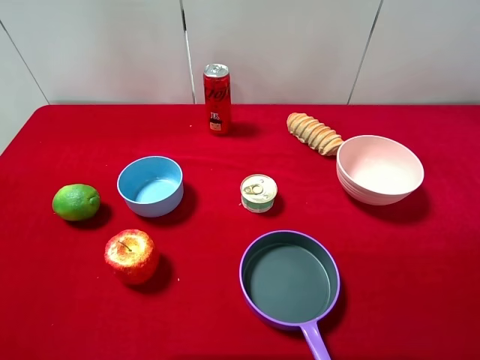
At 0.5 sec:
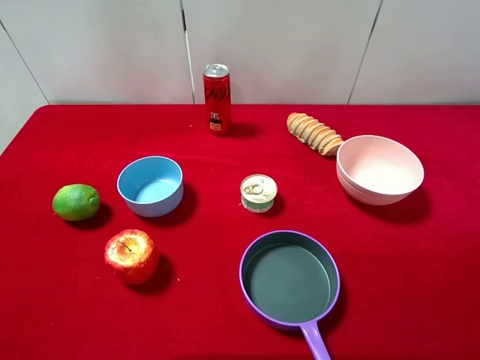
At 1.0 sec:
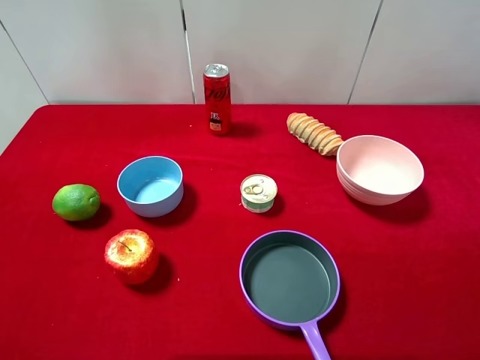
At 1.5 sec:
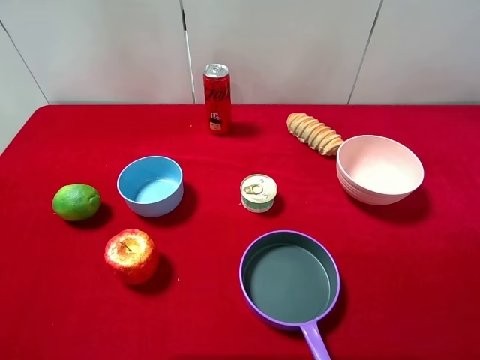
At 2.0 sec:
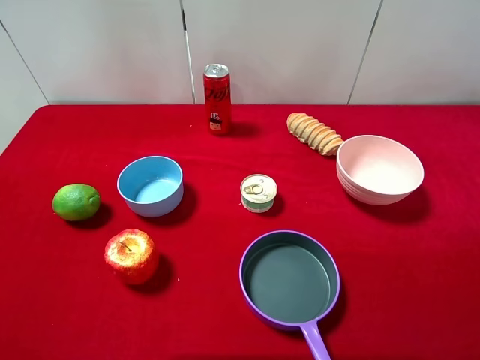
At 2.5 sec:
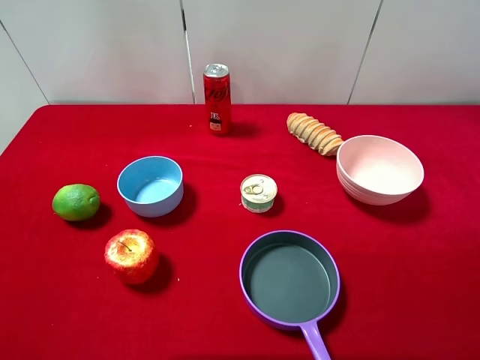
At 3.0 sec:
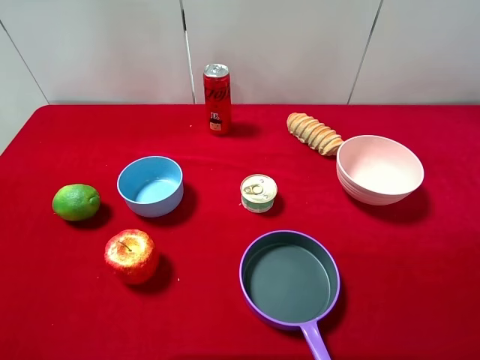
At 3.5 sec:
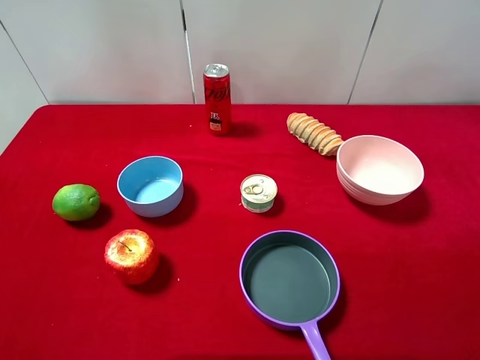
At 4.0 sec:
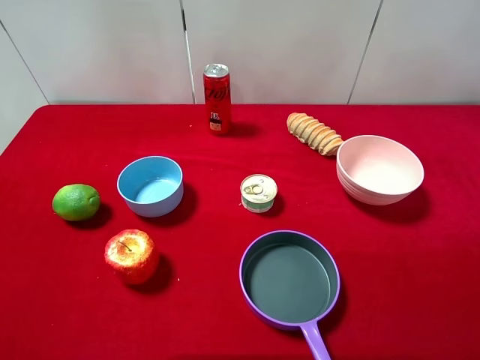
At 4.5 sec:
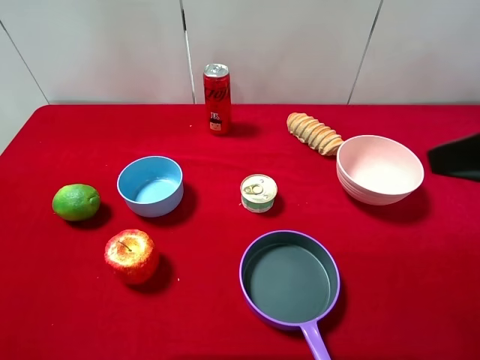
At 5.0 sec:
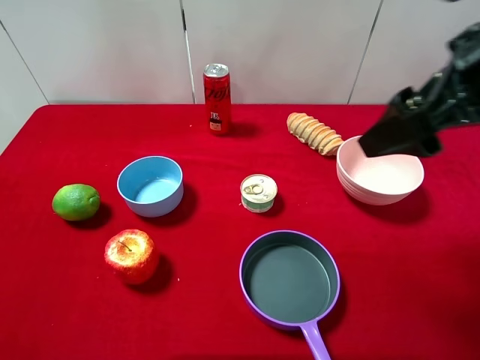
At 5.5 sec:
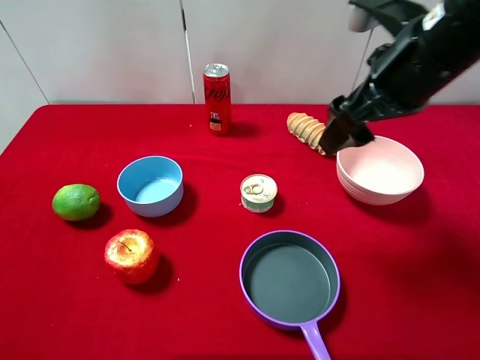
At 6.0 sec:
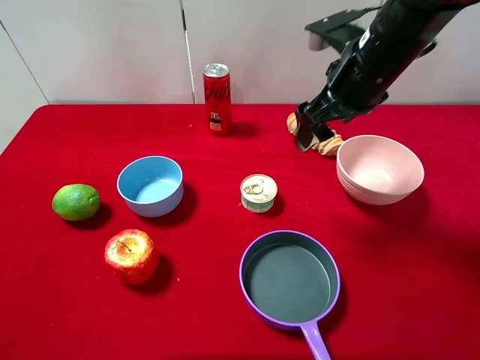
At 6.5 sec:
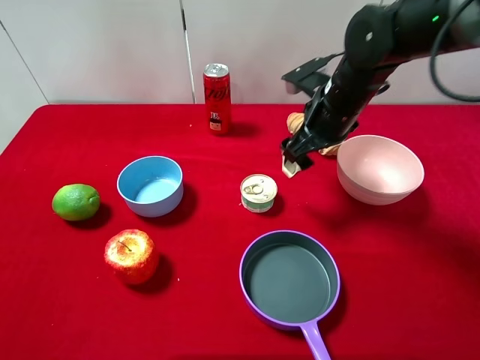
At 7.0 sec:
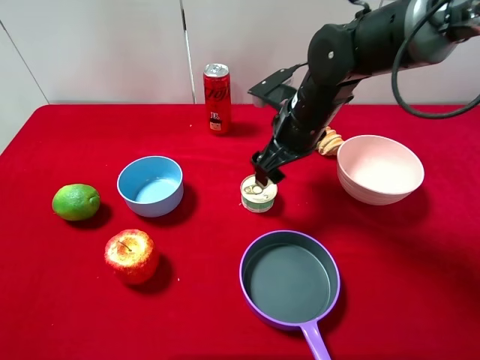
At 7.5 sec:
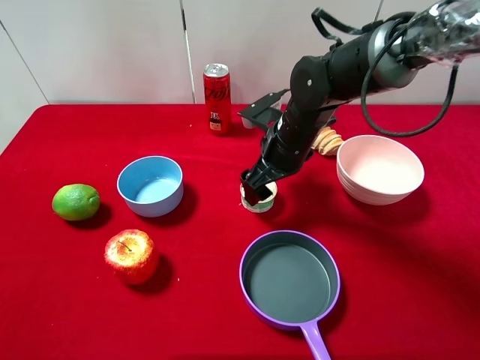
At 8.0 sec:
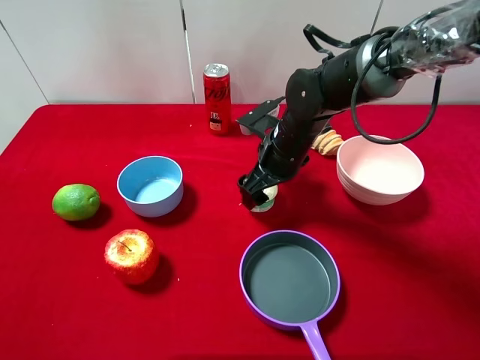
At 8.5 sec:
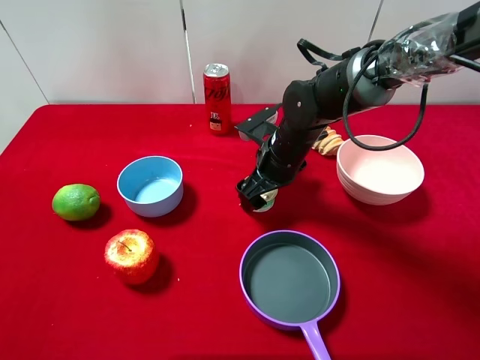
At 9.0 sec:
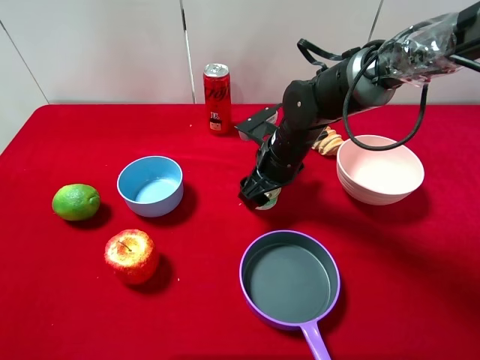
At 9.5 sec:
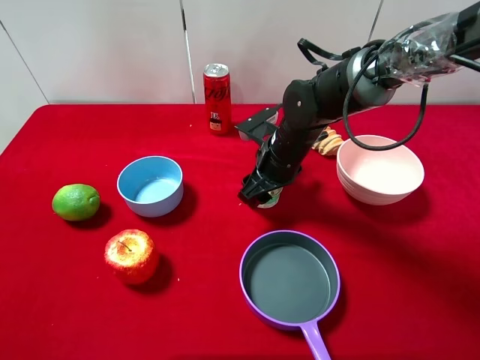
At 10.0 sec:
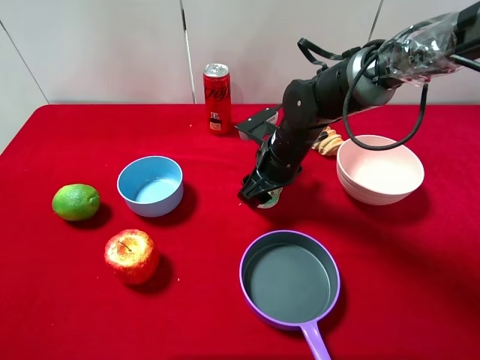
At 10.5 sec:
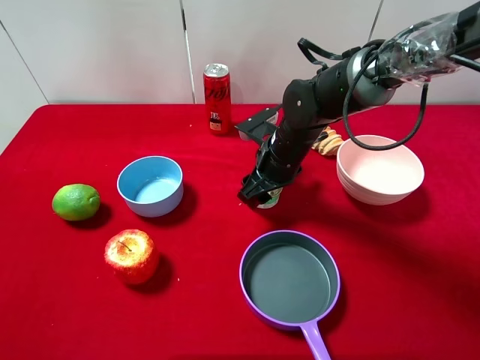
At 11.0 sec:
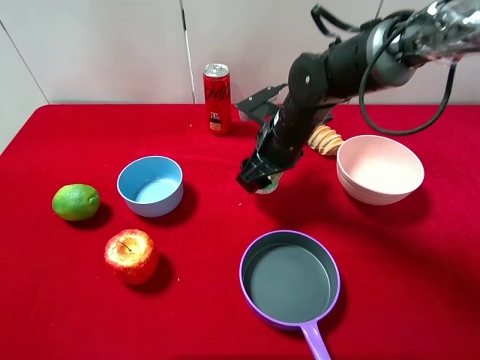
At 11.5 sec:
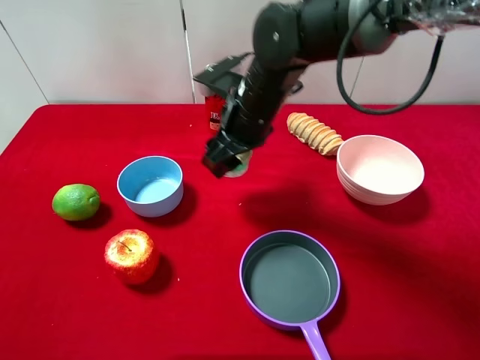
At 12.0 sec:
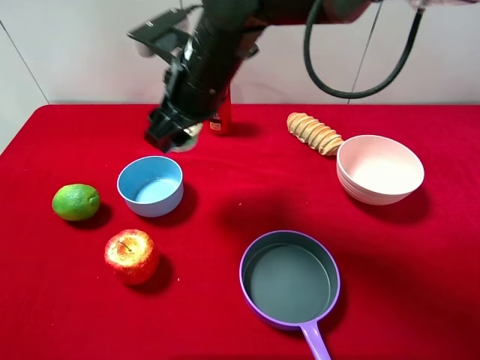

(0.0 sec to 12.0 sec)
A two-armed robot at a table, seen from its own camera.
Task of the whole recording: pick up an item with a gripper and place it in a random container on the desktop.
0.0 sec - 2.0 sec: Both grippers stay about where they are.
4.0 sec - 6.0 sec: The right gripper is displaced forward and to the left by roughly 25 cm.
6.0 sec - 8.0 sec: The right gripper travels downward and to the left by roughly 15 cm.
8.0 sec - 10.0 sec: The right gripper closes.
10.0 sec - 12.0 sec: The right gripper goes approximately 20 cm upward and to the left.

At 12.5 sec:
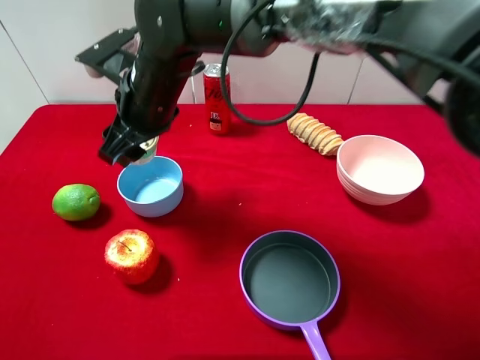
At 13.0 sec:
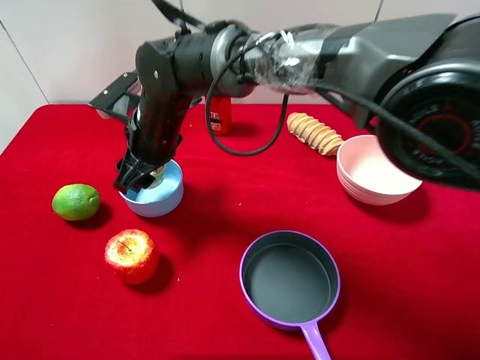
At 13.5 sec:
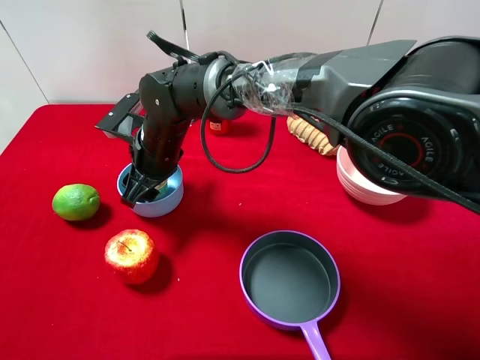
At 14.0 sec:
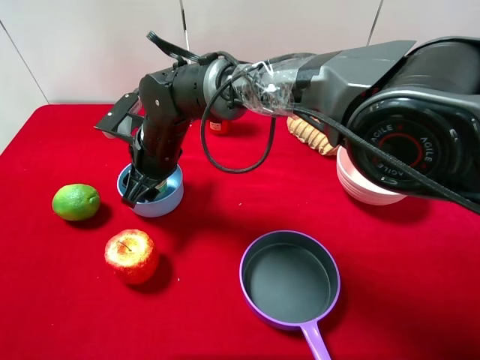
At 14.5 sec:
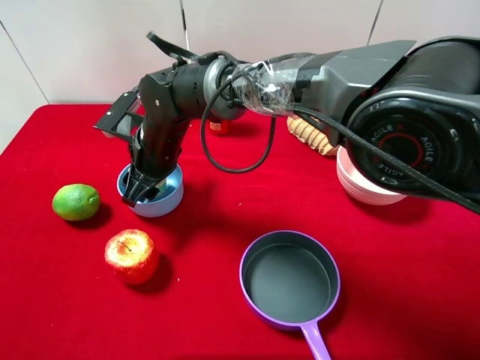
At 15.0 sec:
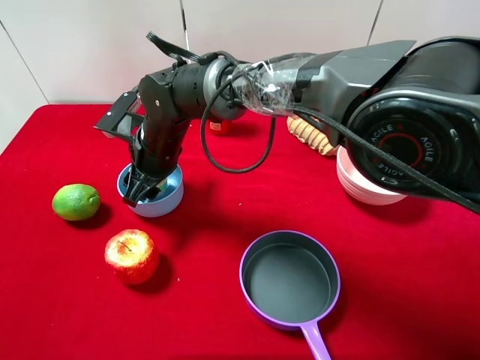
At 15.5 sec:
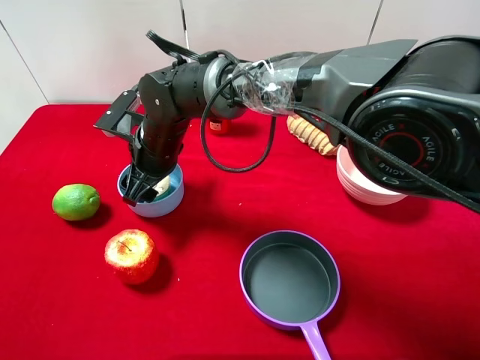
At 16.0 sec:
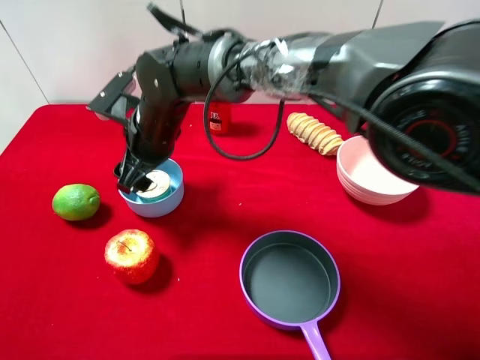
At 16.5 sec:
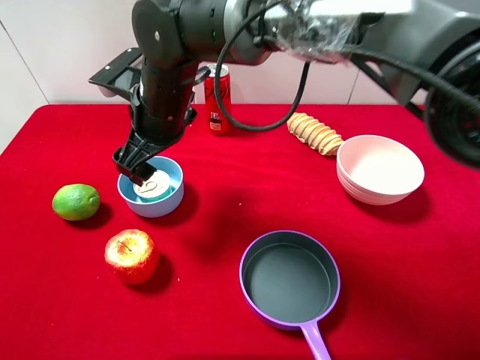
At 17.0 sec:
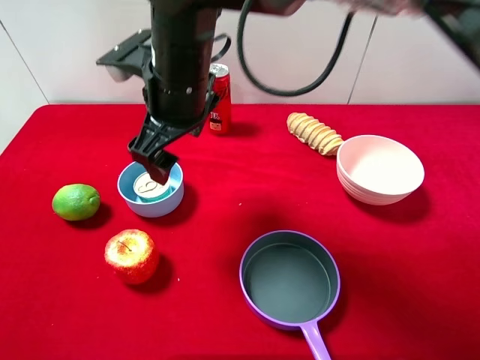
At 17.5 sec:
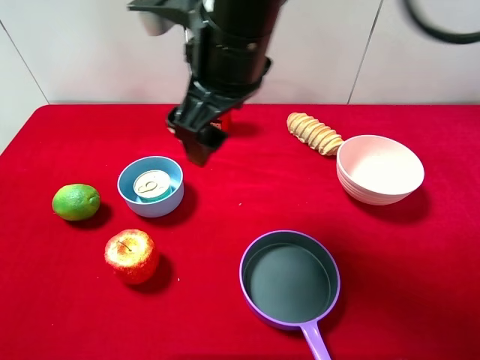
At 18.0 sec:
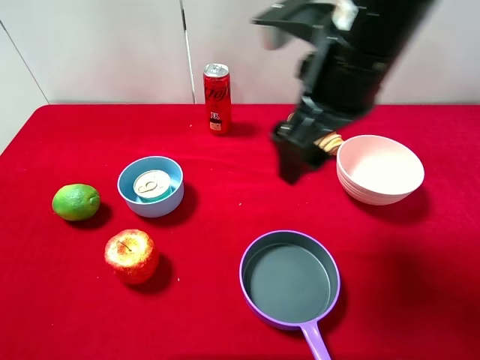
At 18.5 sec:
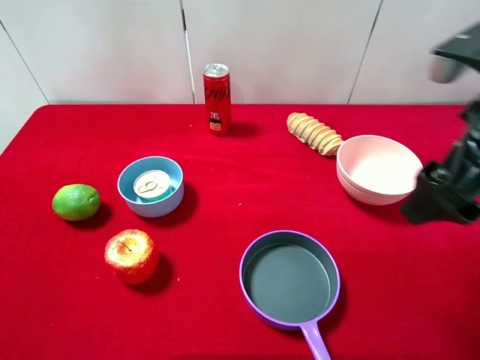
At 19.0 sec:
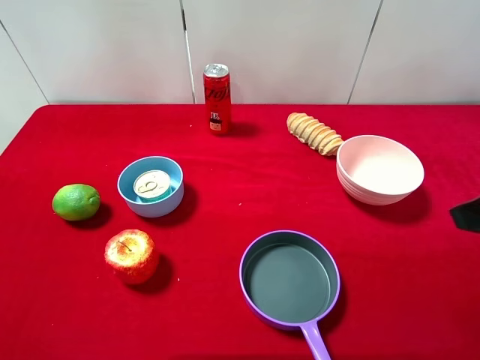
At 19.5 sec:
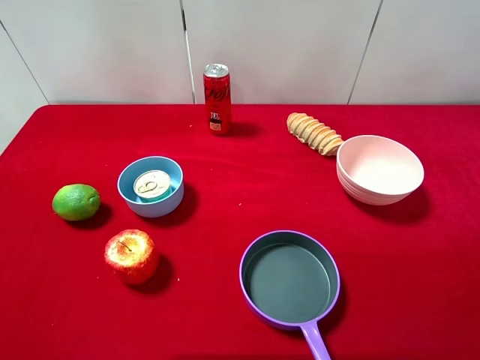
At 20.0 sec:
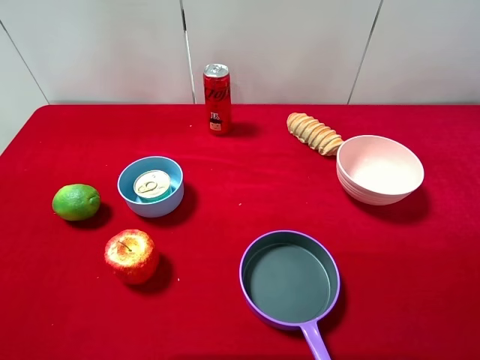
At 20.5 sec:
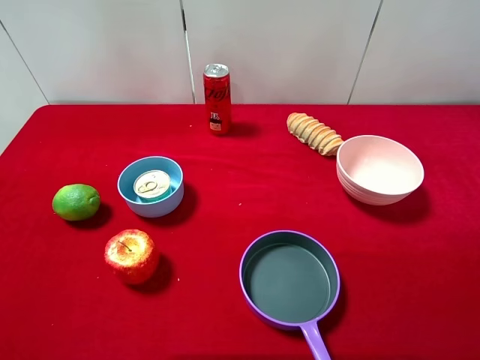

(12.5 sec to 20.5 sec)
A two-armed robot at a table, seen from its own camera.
Task of the whole recording: pick up an item with a gripper and place it in a random container on the desktop.
12.5 sec - 14.5 sec: The right gripper goes some 10 cm downward.
14.5 sec - 16.5 sec: The right gripper travels upward by some 10 cm, and opens up.
16.5 sec - 18.5 sec: The right gripper moves to the right and backward, about 35 cm.
18.5 sec - 20.5 sec: The right gripper is displaced backward and to the right by about 15 cm.
